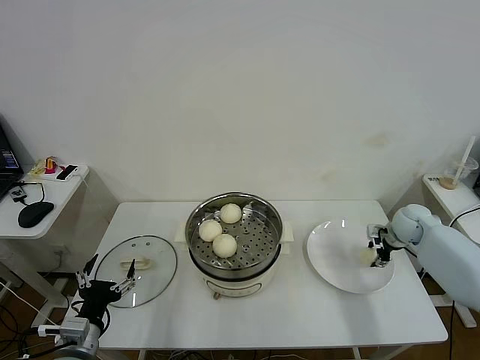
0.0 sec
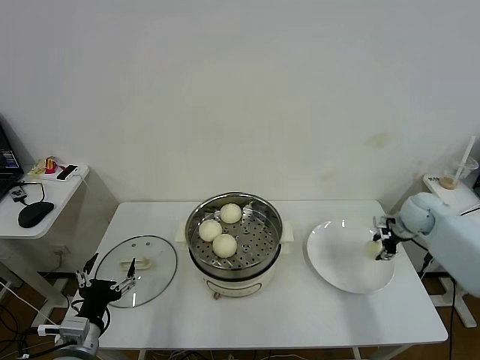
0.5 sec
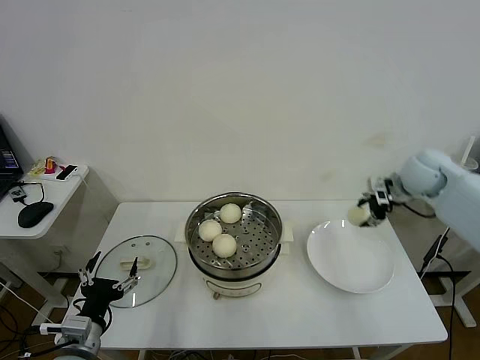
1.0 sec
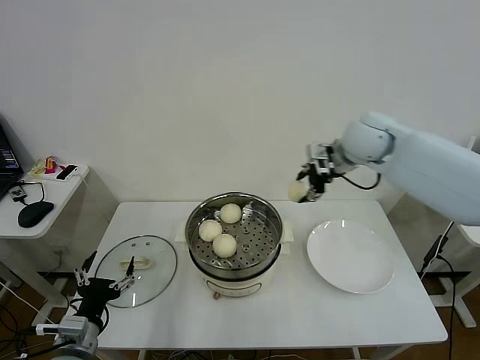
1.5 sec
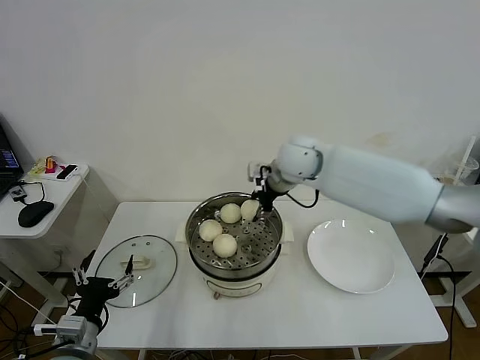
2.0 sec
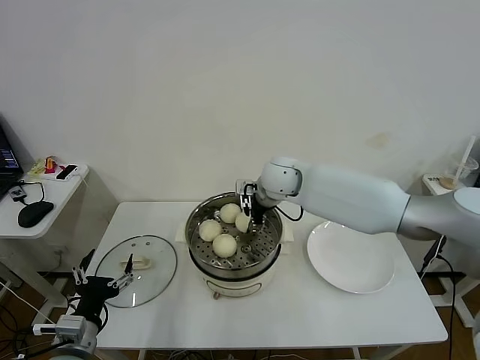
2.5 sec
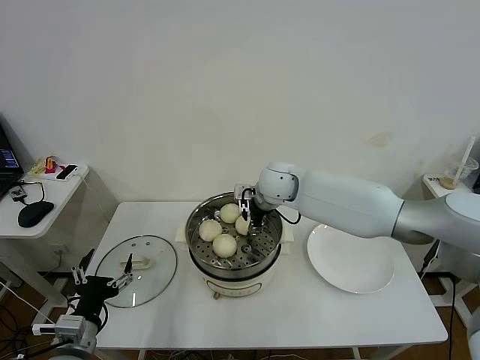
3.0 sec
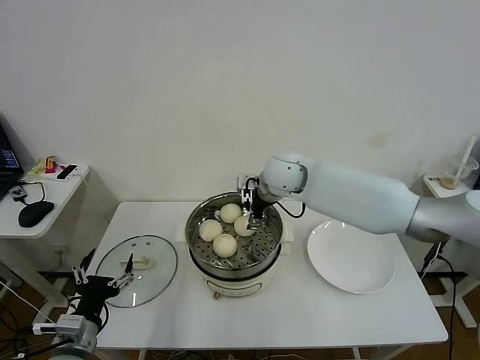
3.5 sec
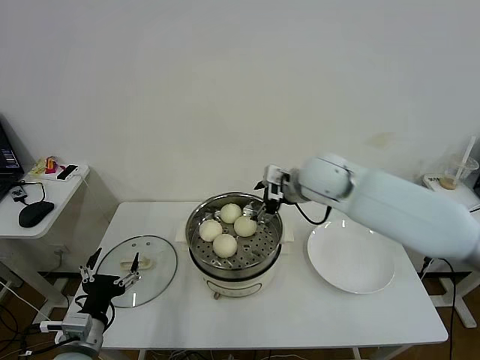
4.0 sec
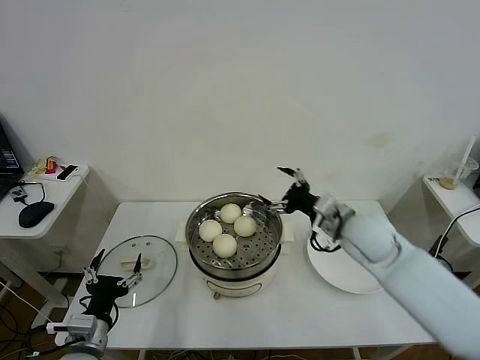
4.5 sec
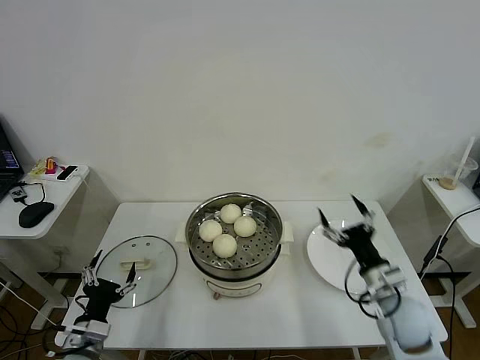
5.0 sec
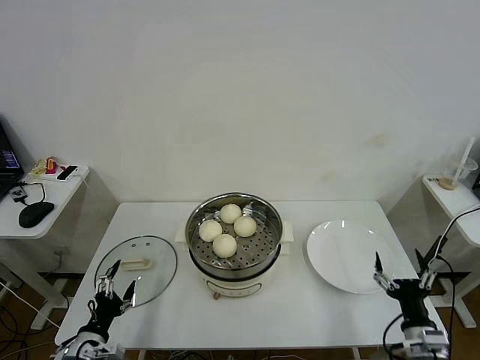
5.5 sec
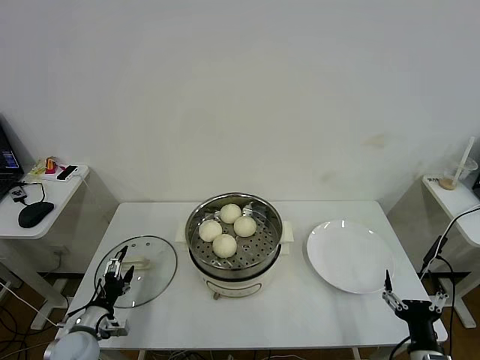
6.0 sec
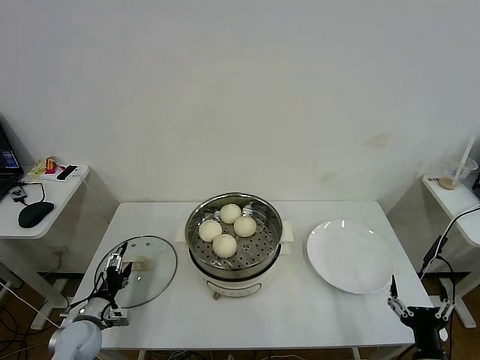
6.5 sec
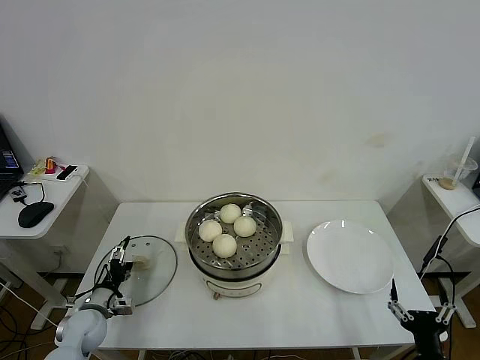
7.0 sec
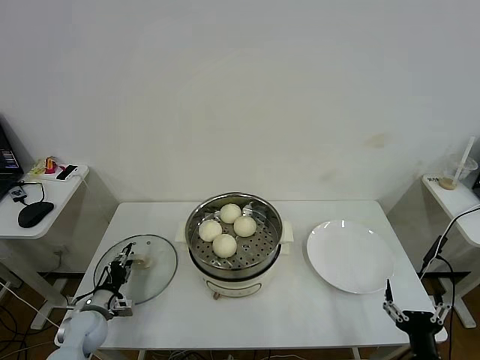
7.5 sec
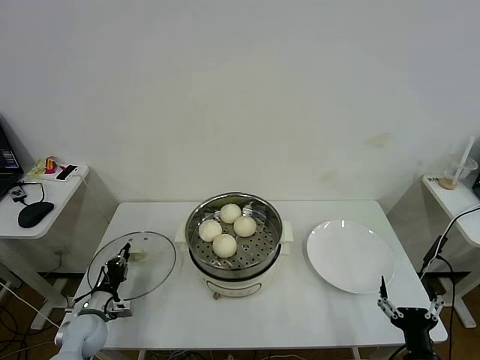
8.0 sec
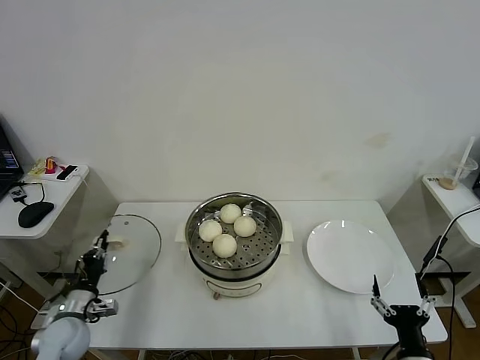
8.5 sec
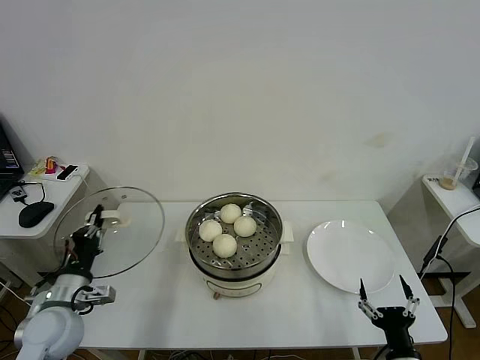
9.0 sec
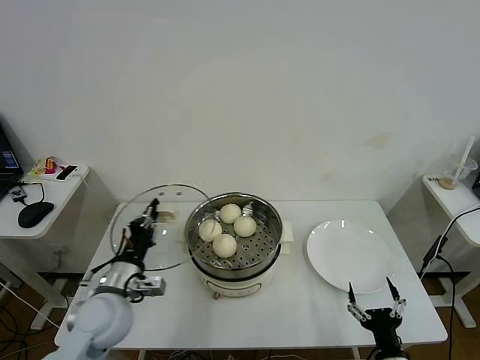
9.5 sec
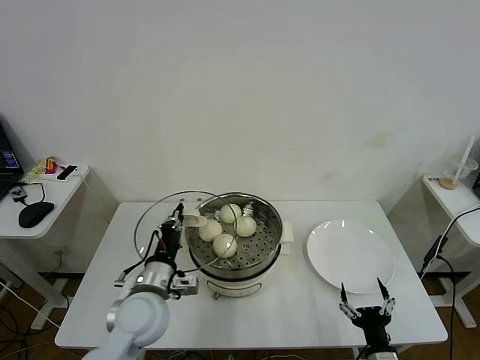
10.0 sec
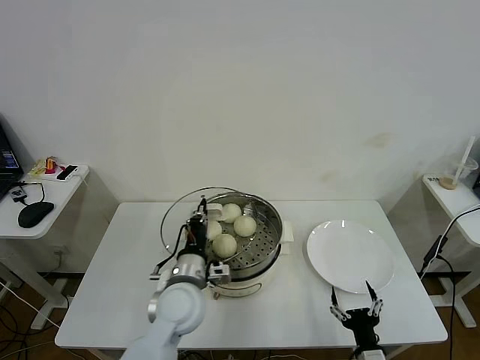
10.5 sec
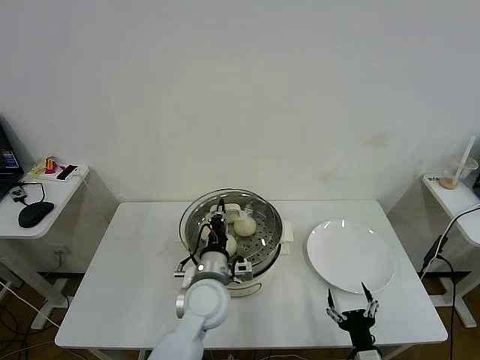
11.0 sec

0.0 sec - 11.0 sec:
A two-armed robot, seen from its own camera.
Task of the whole recording: take steamed baozi put them in steamer then cover it.
Step, 0.5 sec - 3.0 sec: Place the baozi on the steamer with right gripper.
Step, 3.5 sec - 8.0 sec: Grasp the pot lid with left gripper.
0.0 sec - 2.0 sec: The right gripper moves to the left and upward, roughly 40 cm.
2.0 sec - 3.5 sec: The right gripper opens.
3.5 sec - 5.5 sec: The left gripper shifts approximately 10 cm downward. The right gripper goes about 50 cm backward, to the right and downward.
5.5 sec - 7.5 sec: The left gripper heads forward and downward, covering some 15 cm, and closes its fingers; the right gripper shifts some 5 cm backward.
7.5 sec - 9.0 sec: The left gripper heads upward, covering roughly 15 cm, and closes its fingers.
9.0 sec - 11.0 sec: The left gripper heads to the right, covering about 30 cm. The right gripper shifts by about 5 cm.

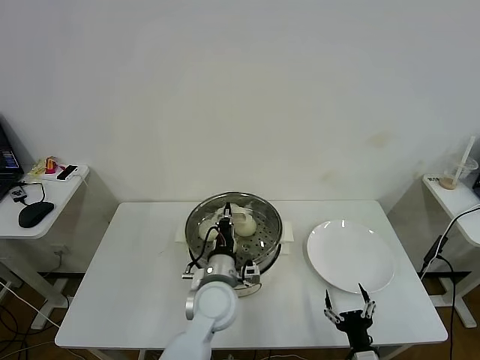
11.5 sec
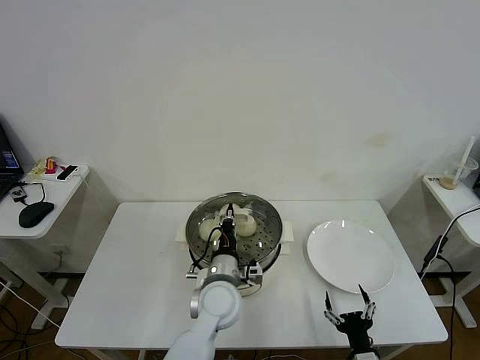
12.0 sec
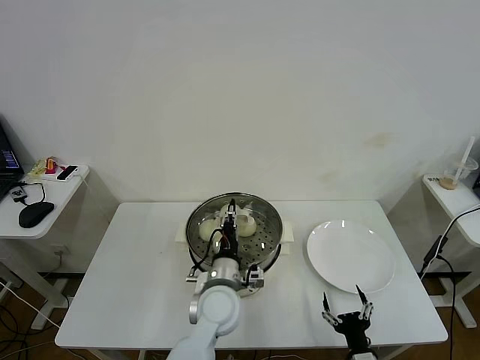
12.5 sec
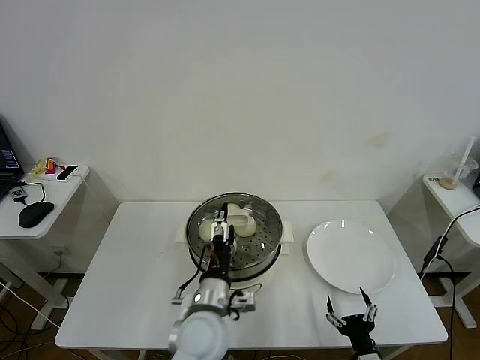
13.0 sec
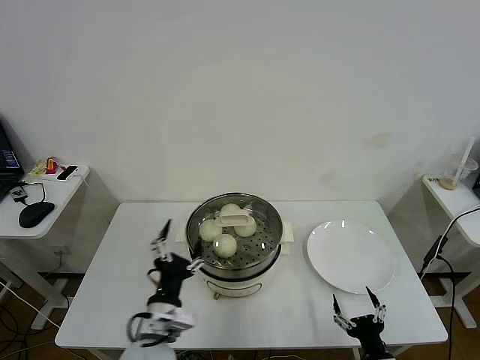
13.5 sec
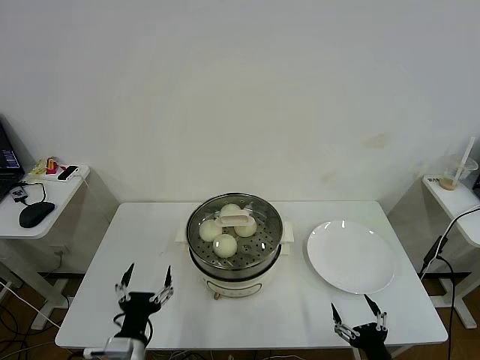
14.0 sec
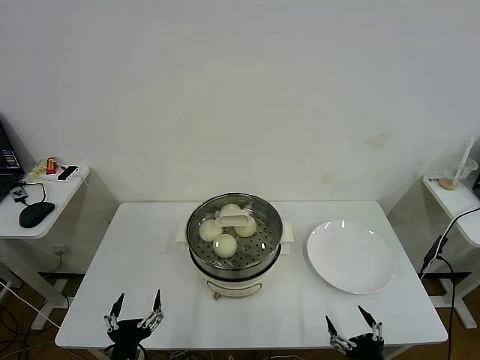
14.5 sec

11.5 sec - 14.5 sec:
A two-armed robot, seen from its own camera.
Task of the whole recording: take steamed baozi put them in steamer then cover it.
11.5 sec - 13.0 sec: The left gripper goes roughly 5 cm backward, and opens its fingers.
13.0 sec - 14.5 sec: The right gripper heads upward, covering approximately 5 cm. Meanwhile the left gripper is displaced to the left and backward by about 25 cm.
